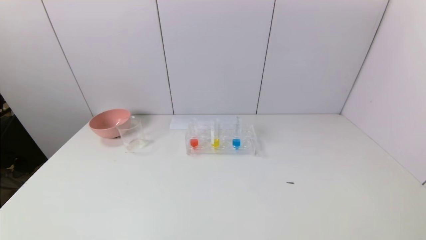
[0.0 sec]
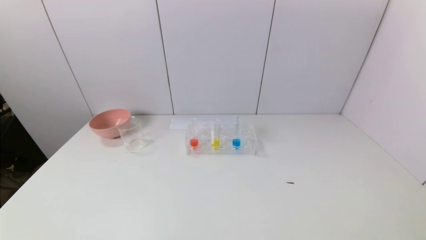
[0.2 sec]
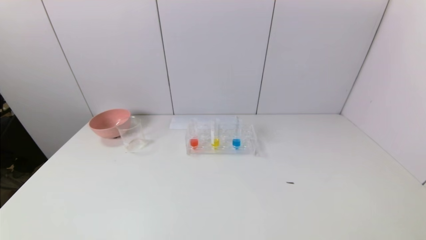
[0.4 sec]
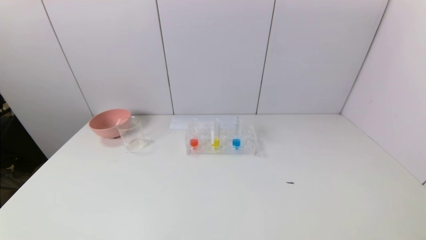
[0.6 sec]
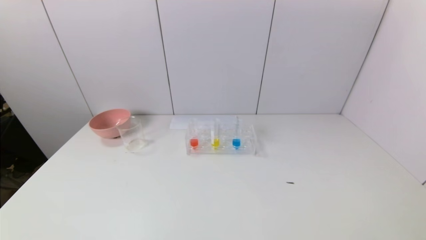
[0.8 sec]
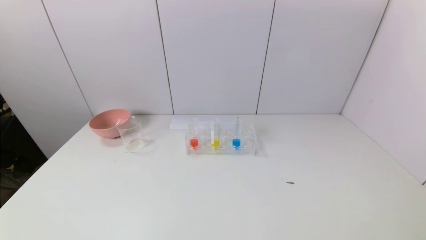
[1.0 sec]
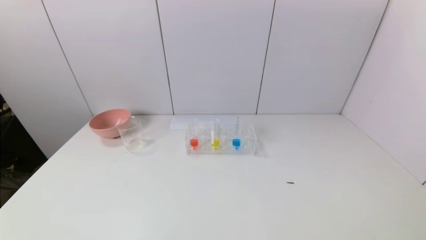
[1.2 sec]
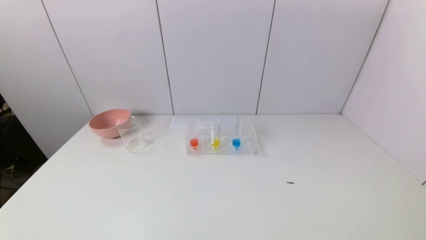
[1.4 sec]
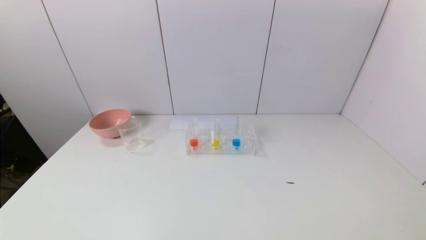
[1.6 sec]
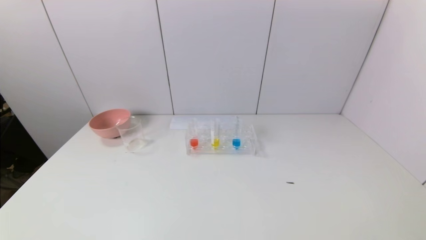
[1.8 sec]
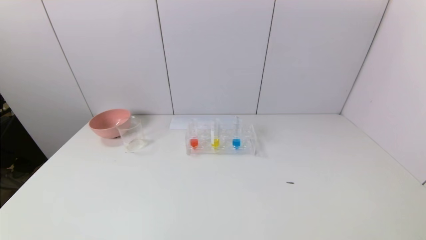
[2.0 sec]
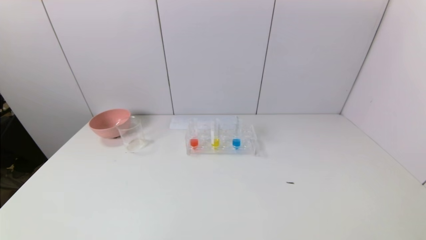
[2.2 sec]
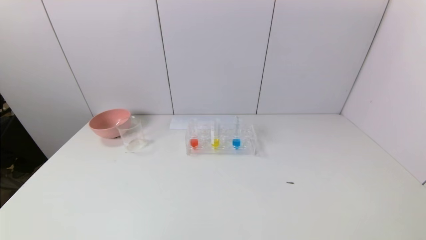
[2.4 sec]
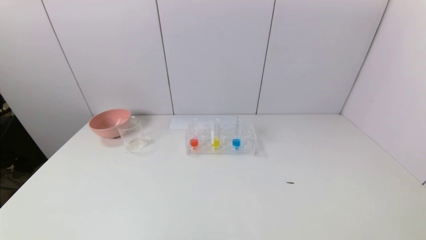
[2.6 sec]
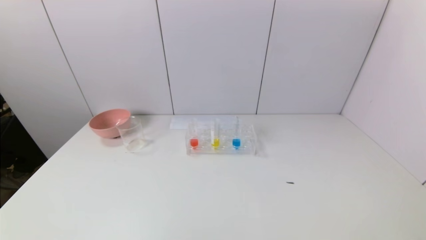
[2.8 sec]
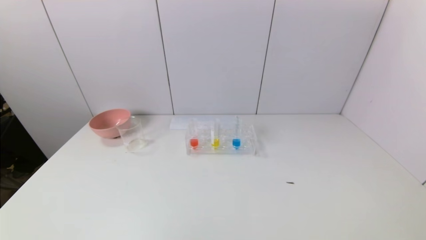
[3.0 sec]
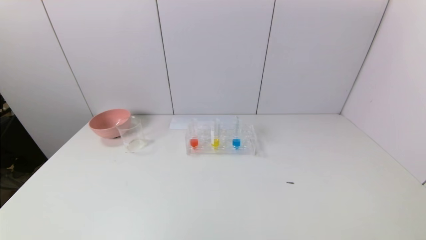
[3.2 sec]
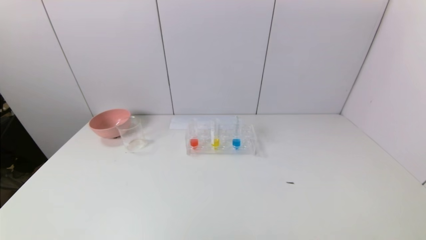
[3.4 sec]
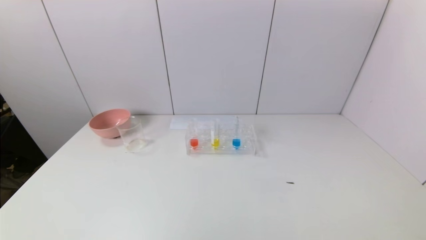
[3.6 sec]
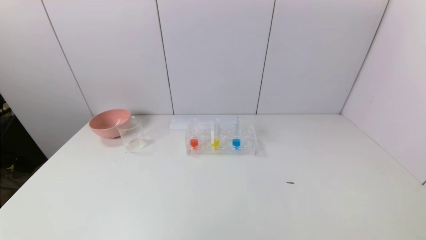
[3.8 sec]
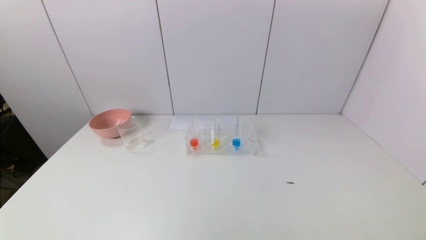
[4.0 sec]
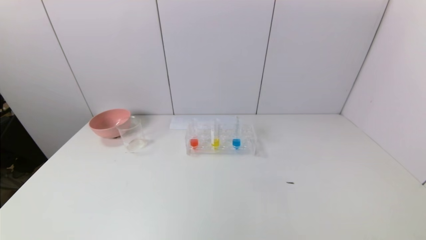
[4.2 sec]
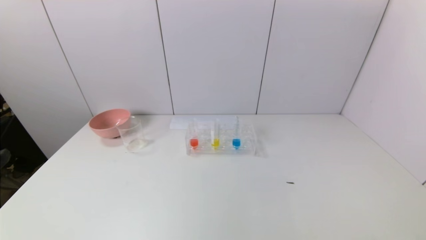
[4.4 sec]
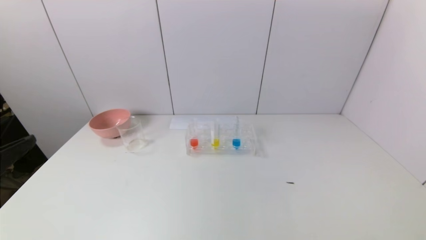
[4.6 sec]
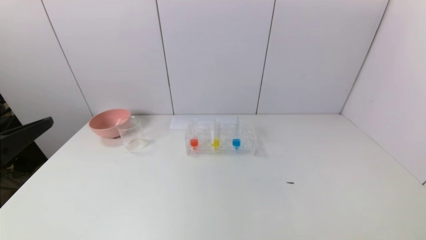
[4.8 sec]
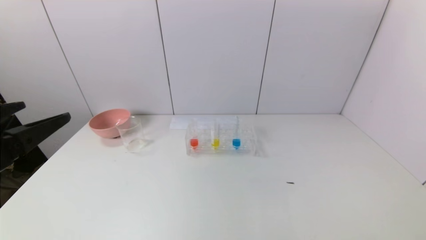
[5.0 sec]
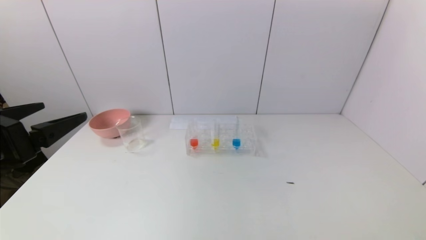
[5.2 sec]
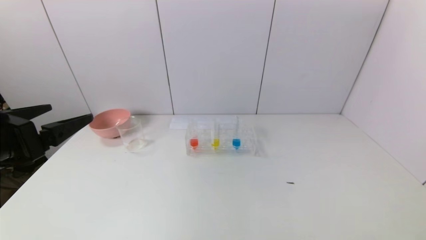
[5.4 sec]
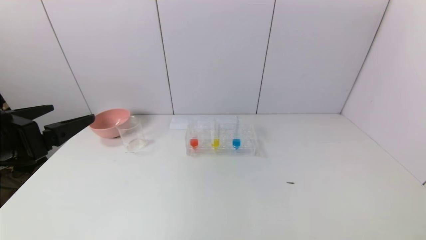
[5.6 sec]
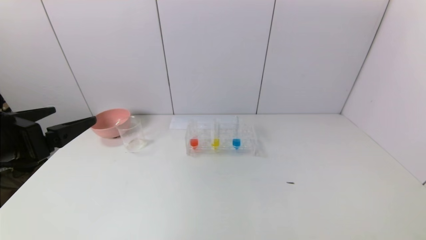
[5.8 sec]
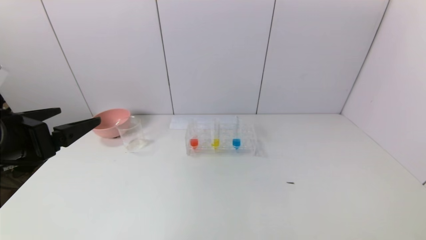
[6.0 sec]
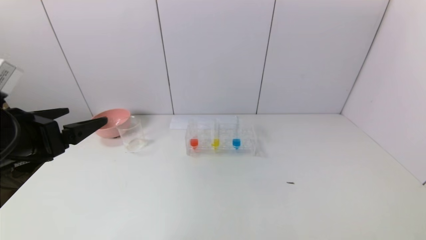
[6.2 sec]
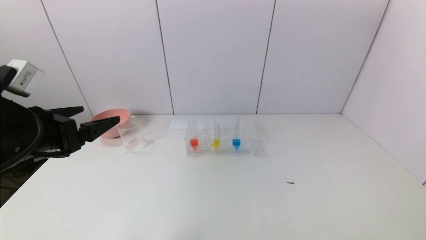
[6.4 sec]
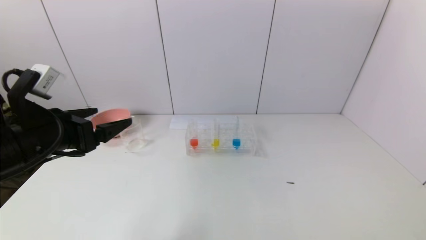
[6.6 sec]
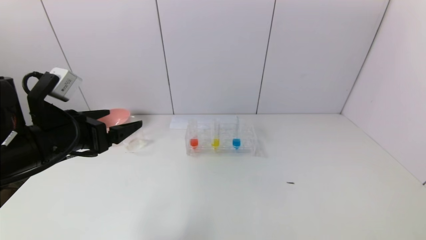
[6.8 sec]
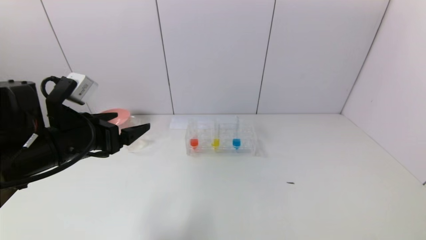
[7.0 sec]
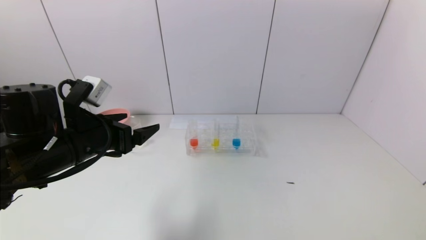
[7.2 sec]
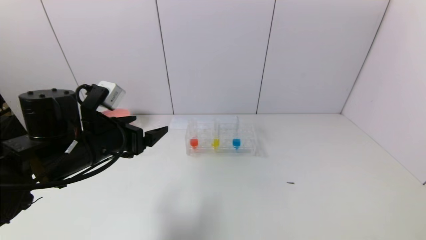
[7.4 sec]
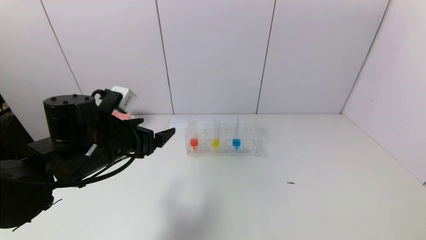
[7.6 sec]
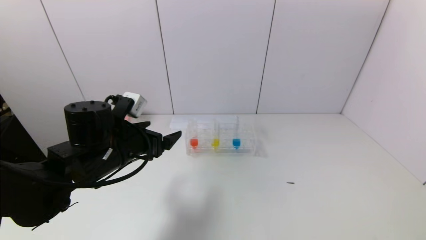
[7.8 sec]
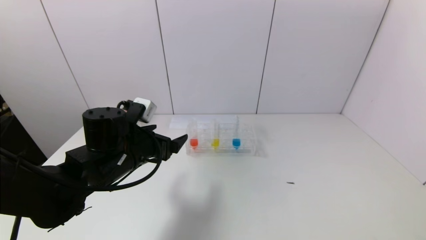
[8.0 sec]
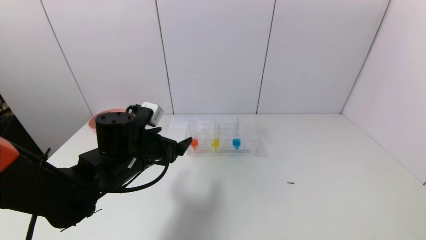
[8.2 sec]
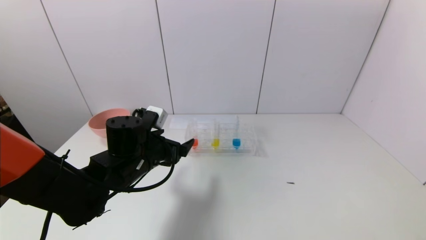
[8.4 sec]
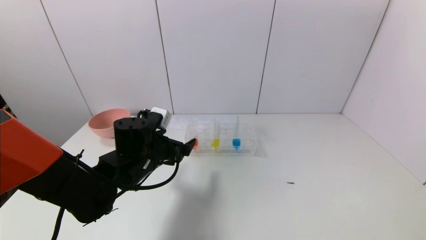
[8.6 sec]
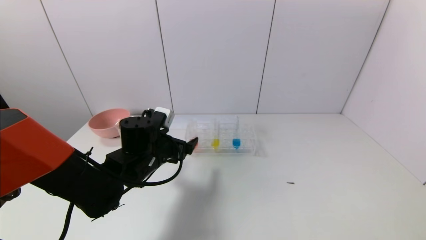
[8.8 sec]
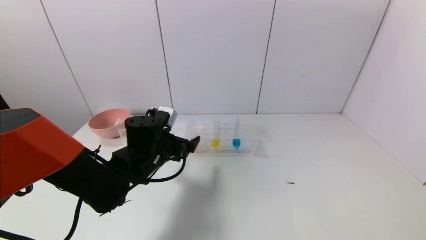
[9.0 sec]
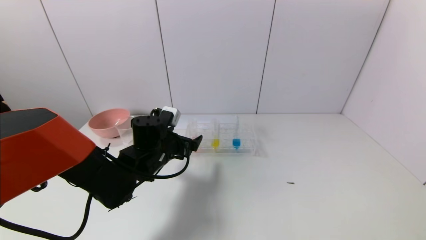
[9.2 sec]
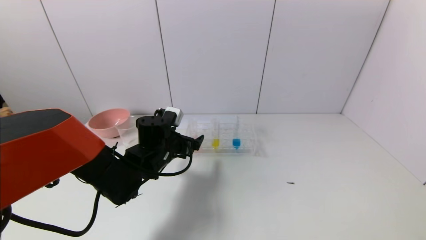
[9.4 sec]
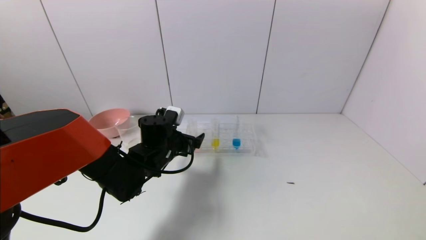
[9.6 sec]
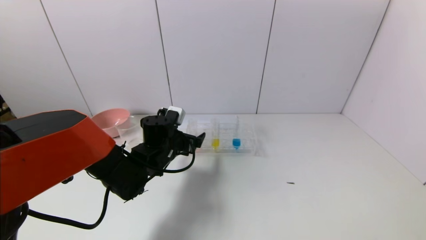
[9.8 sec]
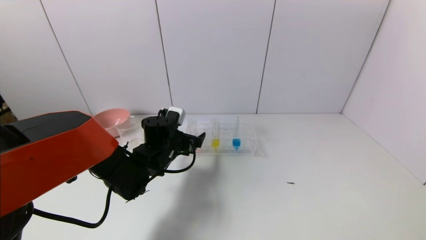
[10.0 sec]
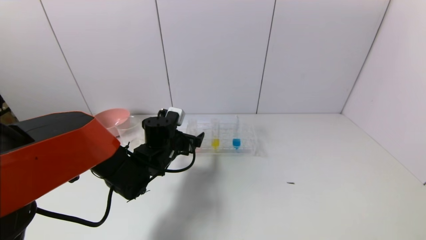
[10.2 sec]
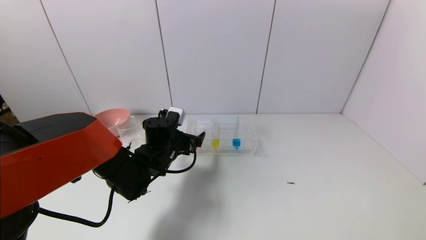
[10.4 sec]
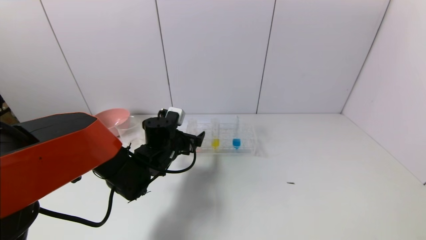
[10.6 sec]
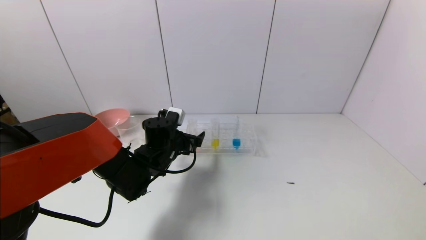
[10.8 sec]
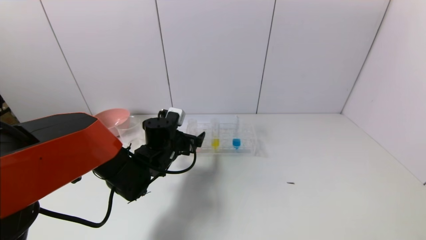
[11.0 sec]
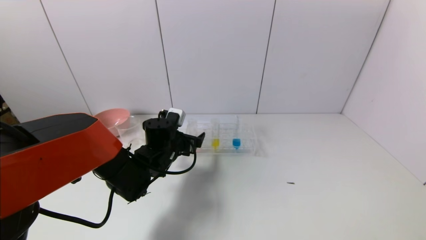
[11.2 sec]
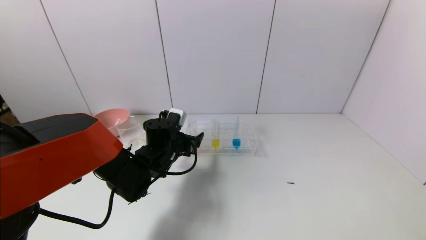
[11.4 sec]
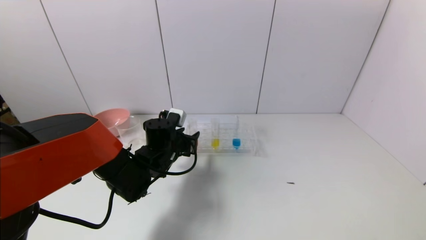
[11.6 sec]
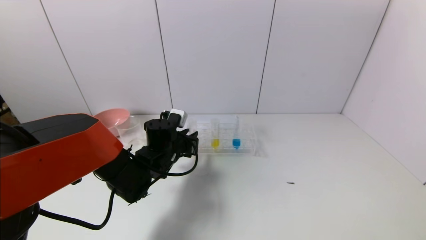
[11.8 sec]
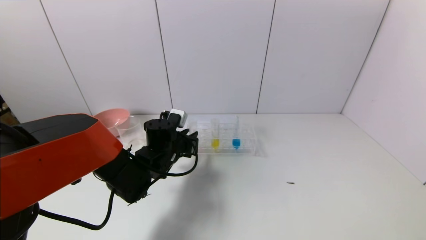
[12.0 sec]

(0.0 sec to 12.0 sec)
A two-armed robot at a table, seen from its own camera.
Task of the whole recording: pick up the test tube with yellow pigment and the test tube with red pigment by grippers and pour them into the beaker.
0.0 sec - 1.6 sec: Both grippers stay about where they are.
4.4 sec - 6.0 sec: The left gripper moves forward, some 10 cm.
6.0 sec - 7.6 sec: The left gripper goes some 15 cm to the right, forward and downward.
7.6 sec - 9.0 sec: The left gripper heads downward, to the right and forward, covering some 10 cm.
9.0 sec - 10.4 sec: The left gripper changes place by some 5 cm.
10.4 sec - 12.0 sec: The left gripper closes up.

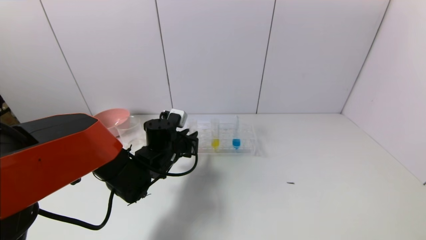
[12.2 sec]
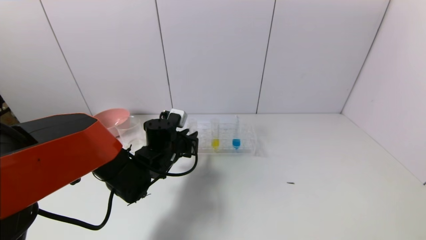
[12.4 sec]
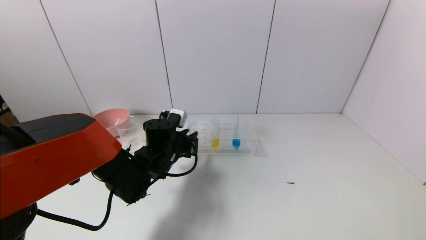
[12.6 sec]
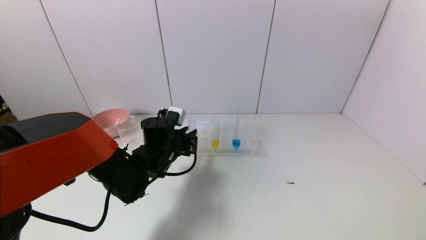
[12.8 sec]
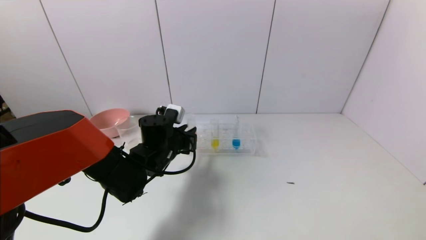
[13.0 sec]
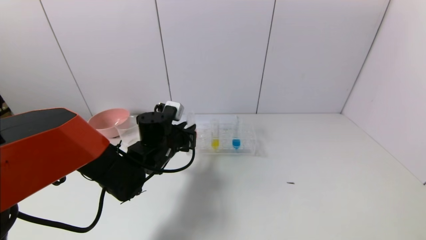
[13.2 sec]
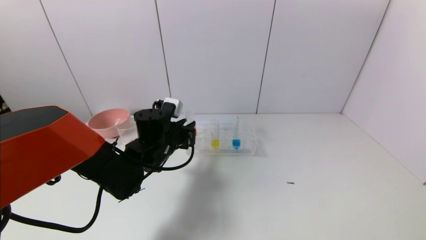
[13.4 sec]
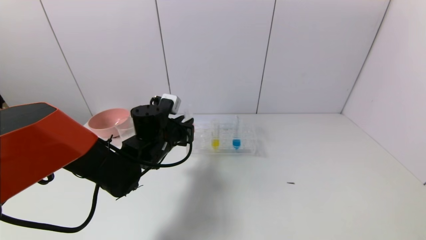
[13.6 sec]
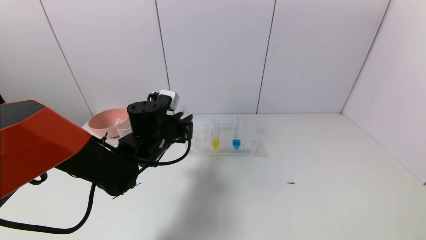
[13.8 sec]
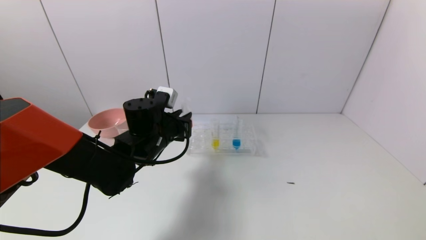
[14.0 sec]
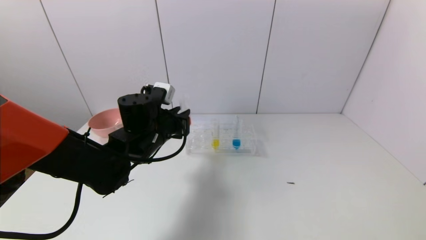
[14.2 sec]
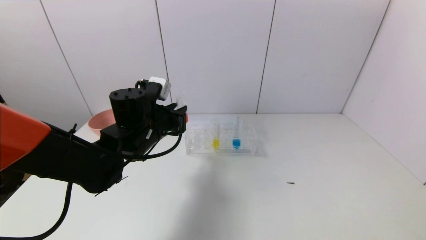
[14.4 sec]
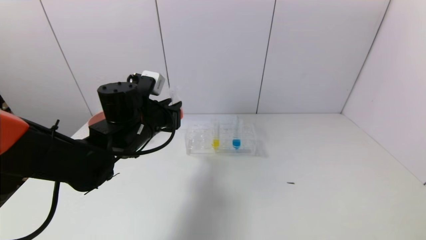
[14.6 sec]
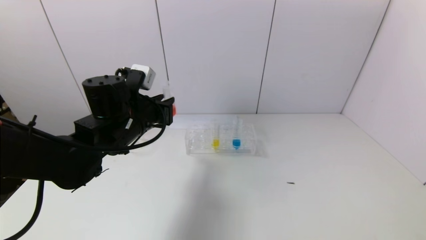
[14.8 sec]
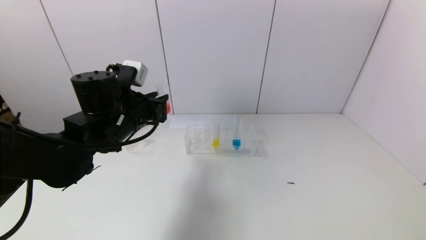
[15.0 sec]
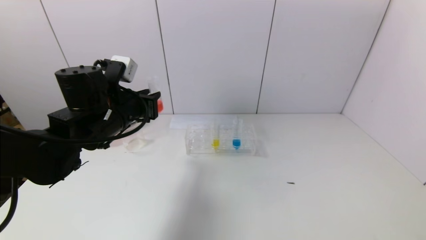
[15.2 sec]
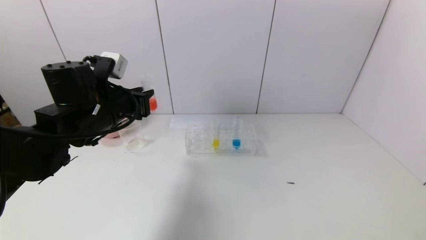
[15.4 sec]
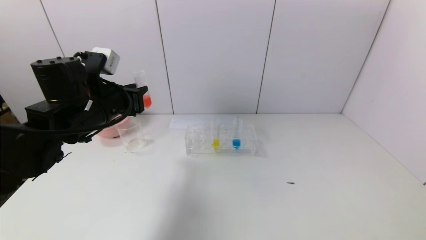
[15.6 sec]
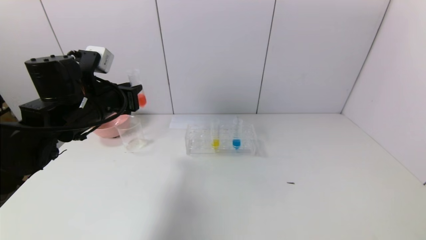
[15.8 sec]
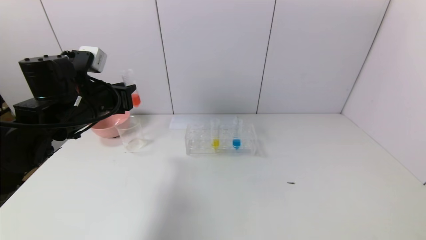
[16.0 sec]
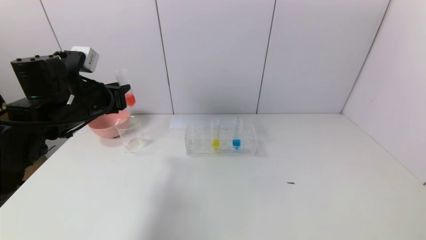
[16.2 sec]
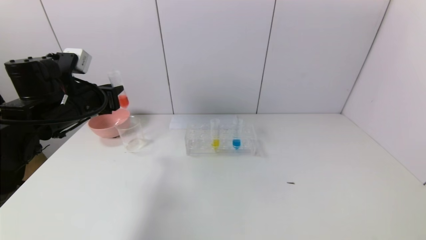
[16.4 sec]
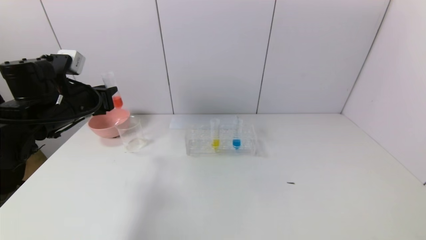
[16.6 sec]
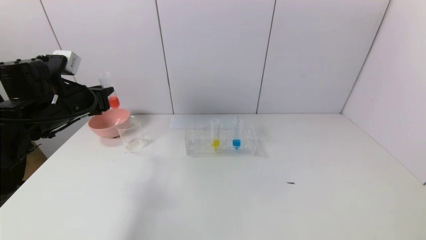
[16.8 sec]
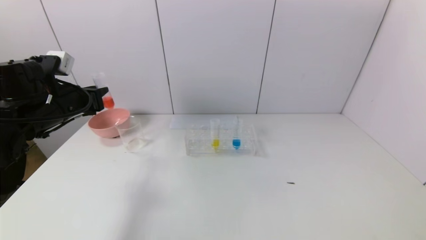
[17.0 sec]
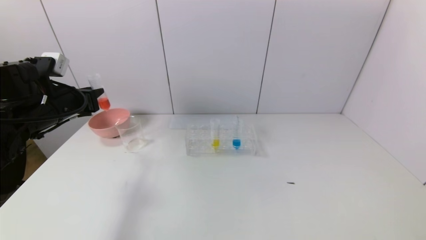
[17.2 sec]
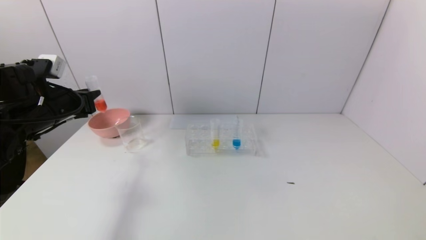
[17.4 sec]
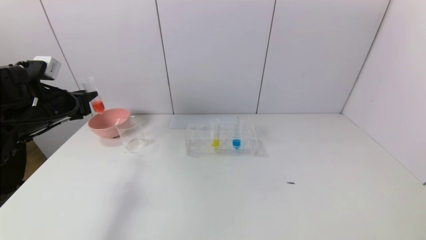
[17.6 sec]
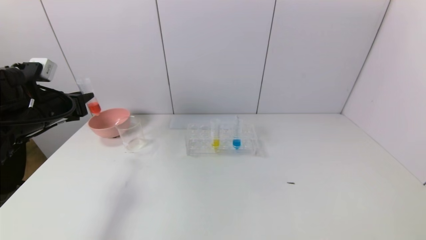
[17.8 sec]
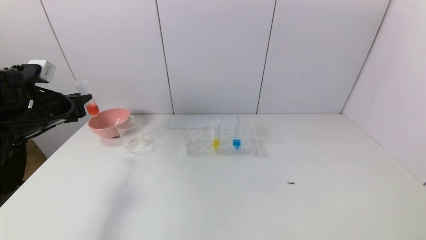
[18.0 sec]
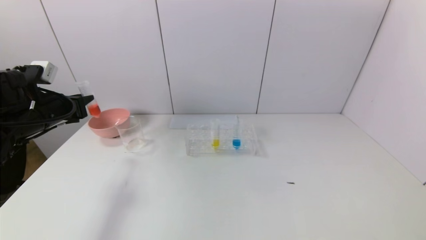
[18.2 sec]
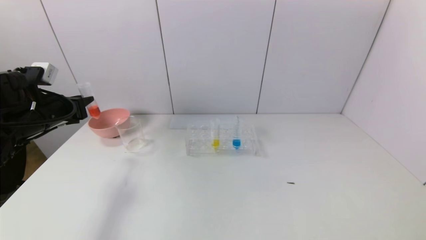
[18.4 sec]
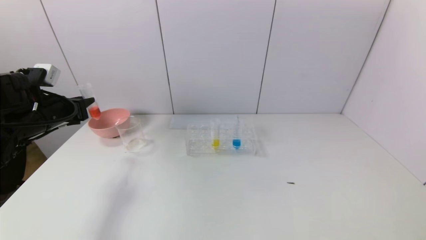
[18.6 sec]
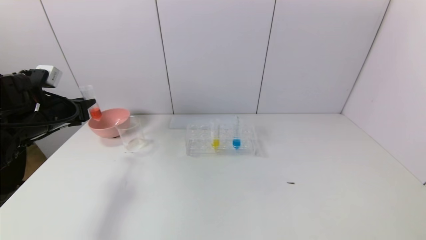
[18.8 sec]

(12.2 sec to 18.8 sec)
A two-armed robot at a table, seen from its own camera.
Task of the whole recording: pick up the test tube with yellow pigment and the test tube with red pigment by grippers and pour them into the beaker.
12.2 sec - 13.8 sec: The left gripper goes about 5 cm upward.
13.8 sec - 15.4 sec: The left gripper is displaced upward and to the left by about 10 cm.
15.4 sec - 17.2 sec: The left gripper moves to the left, roughly 10 cm.
17.2 sec - 18.8 sec: The grippers move only a little.
